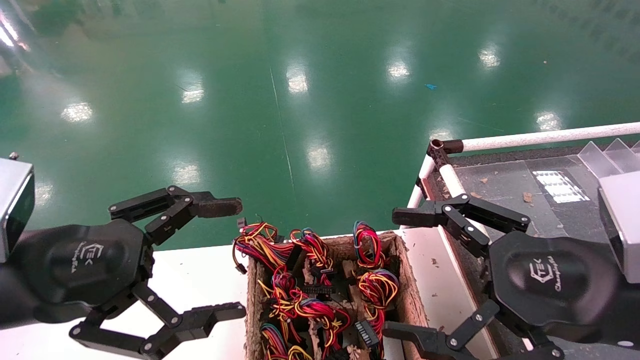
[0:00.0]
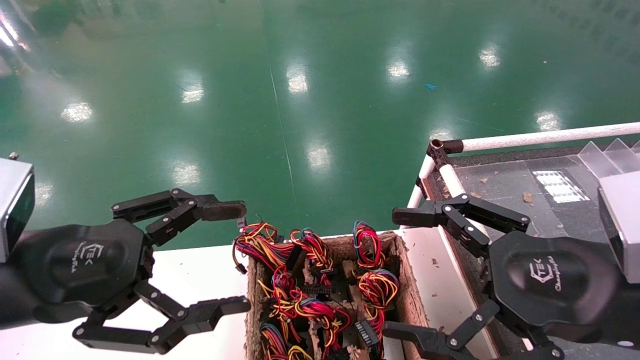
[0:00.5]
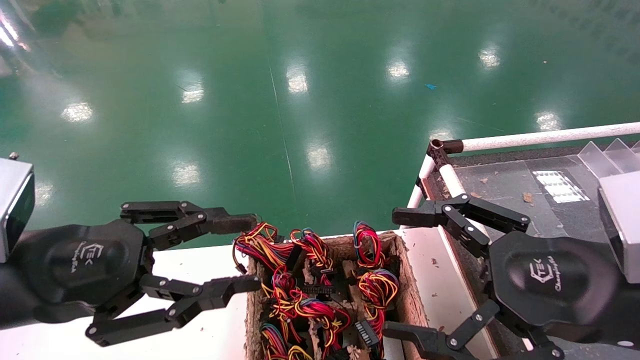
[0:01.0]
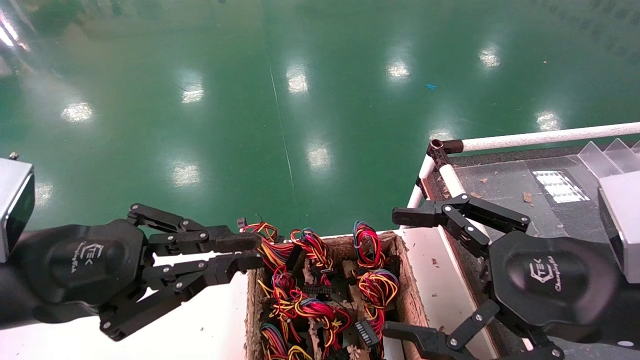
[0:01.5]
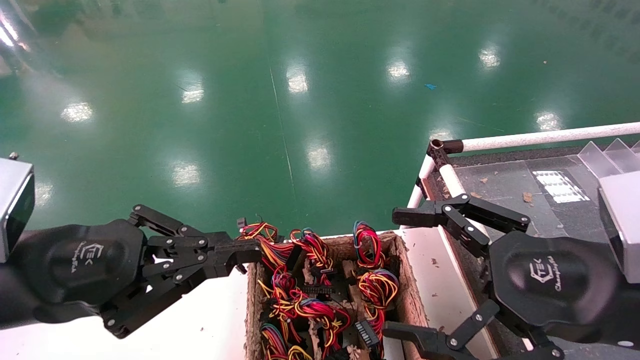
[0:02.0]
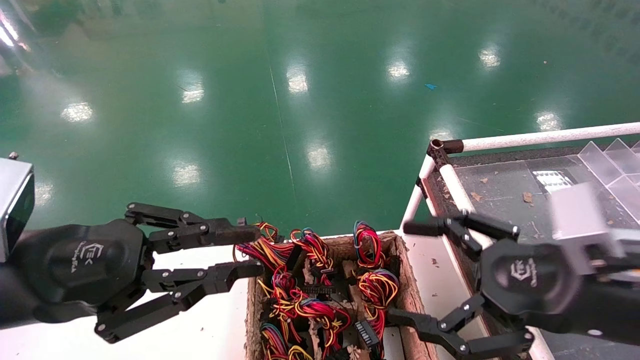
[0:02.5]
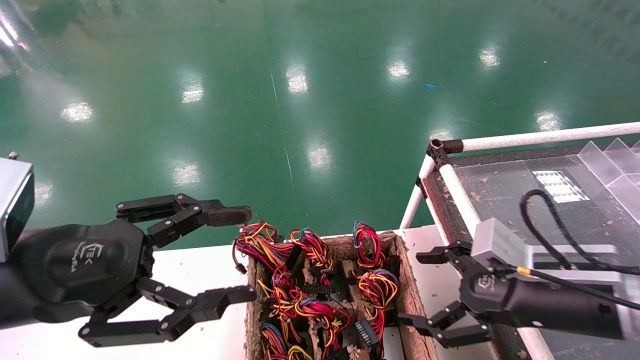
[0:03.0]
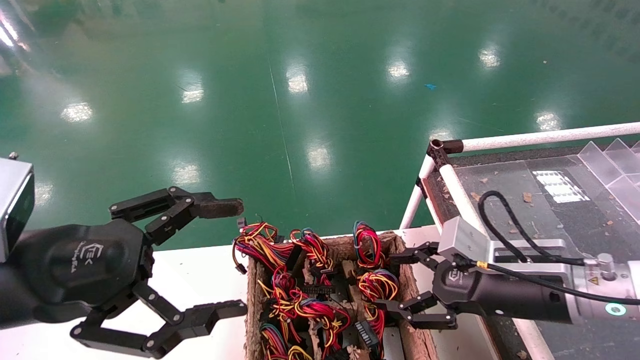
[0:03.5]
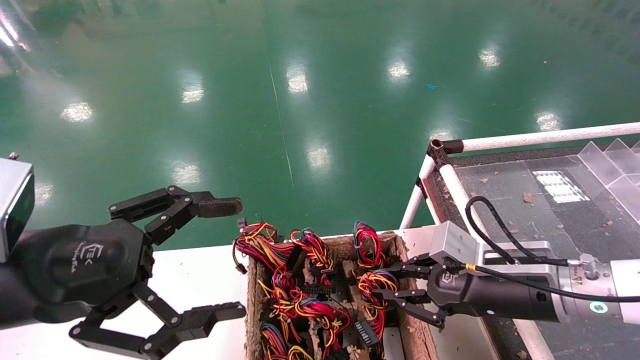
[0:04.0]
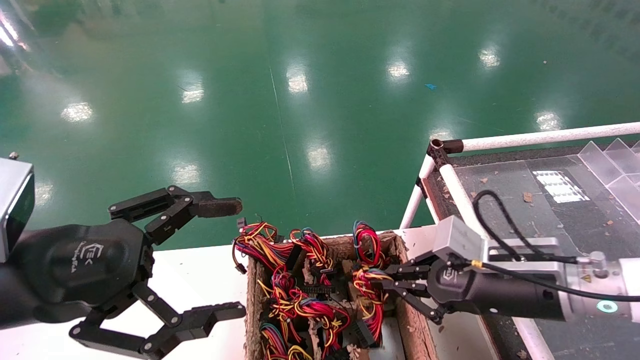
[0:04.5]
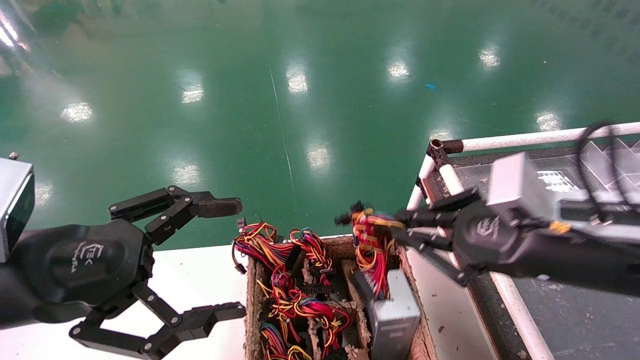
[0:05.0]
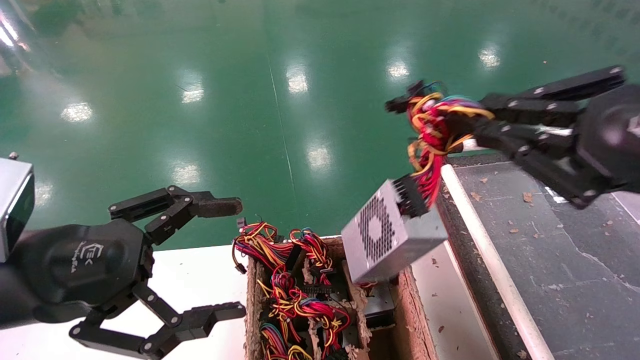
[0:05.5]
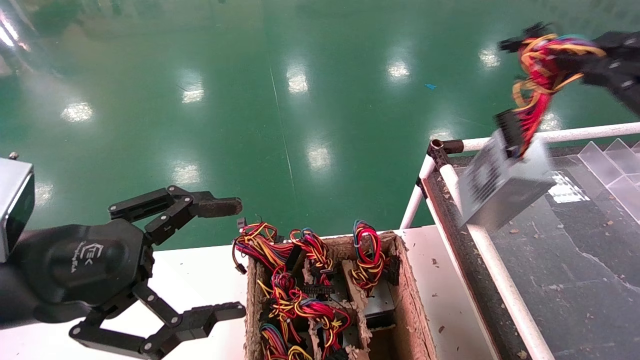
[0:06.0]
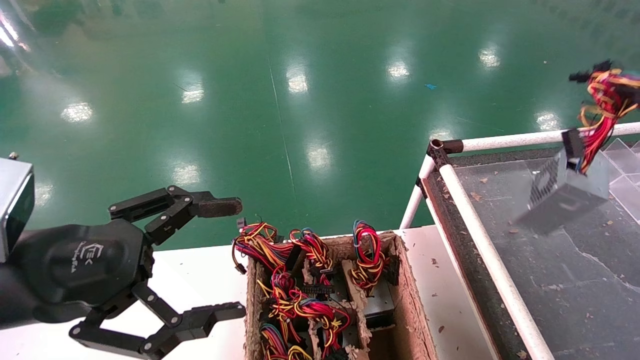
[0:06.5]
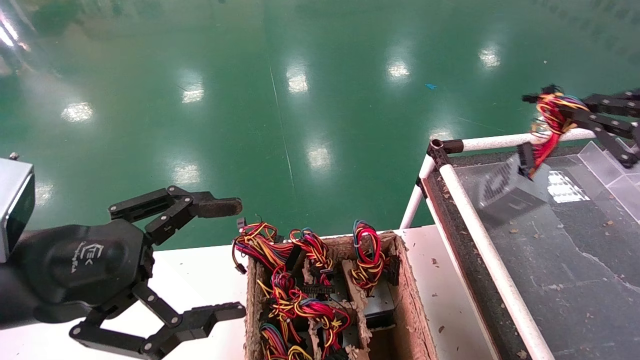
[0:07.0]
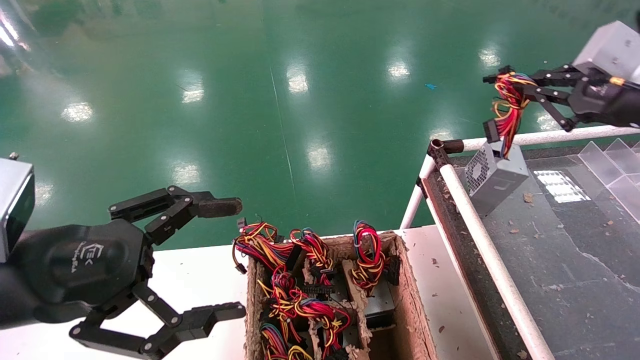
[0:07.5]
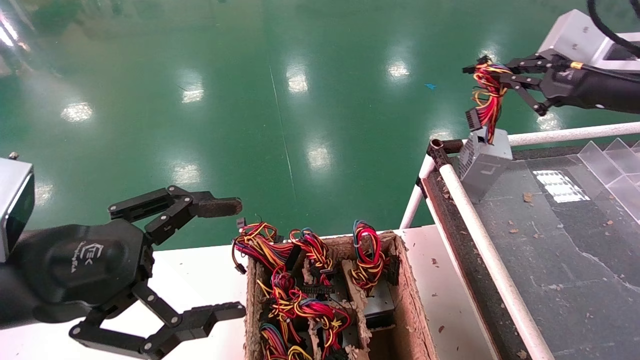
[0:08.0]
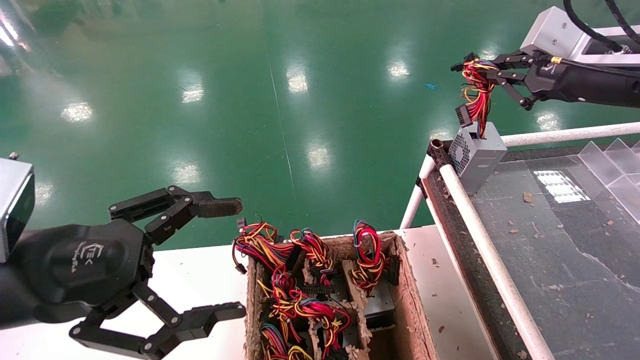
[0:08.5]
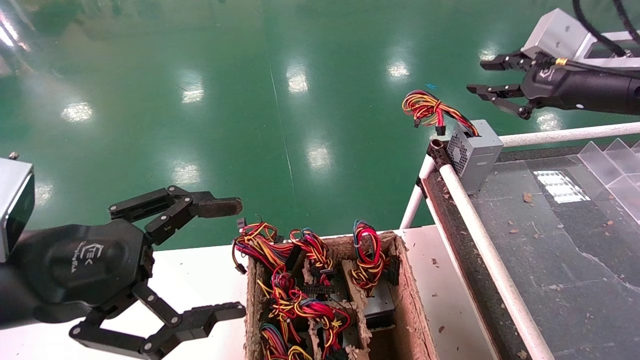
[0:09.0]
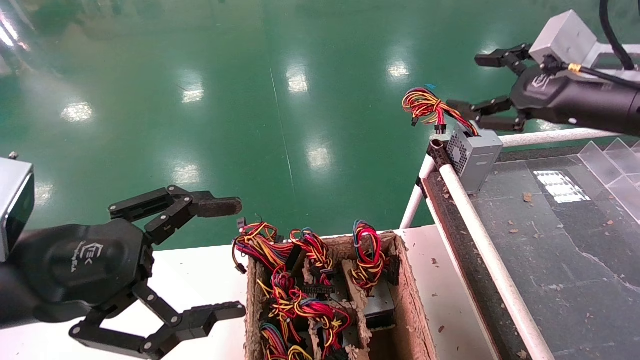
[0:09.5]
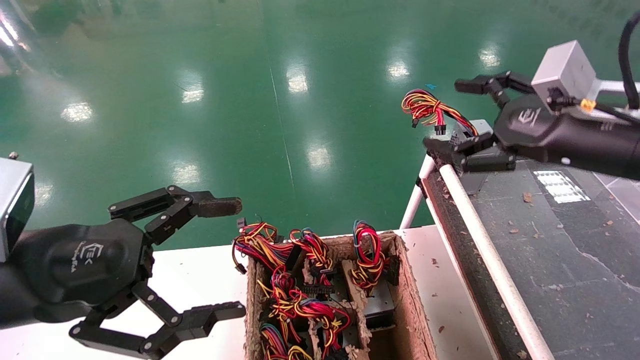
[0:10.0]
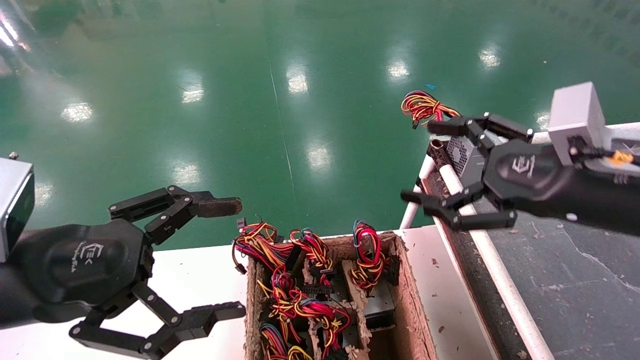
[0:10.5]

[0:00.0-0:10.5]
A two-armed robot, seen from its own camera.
Step, 0:02.5 to 0:04.0: Grab and lift the power supply from the large box.
Step, 0:04.5 to 0:09.0: Place the power supply on the operating table.
0:00.0 to 0:02.0: The left gripper closes.
0:02.0 to 0:04.0: The left gripper opens up. Meanwhile the right gripper is displaced forward and downward by approximately 15 cm, and closes.
0:04.0 to 0:06.5: The right gripper goes about 30 cm to the right, upward and backward.
0:06.5 to 0:08.5: The right gripper moves forward and to the left, approximately 20 cm.
0:08.5 to 0:10.5: The right gripper goes about 15 cm downward, backward and to the left, and opens its fingers.
